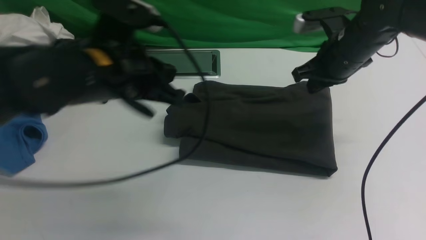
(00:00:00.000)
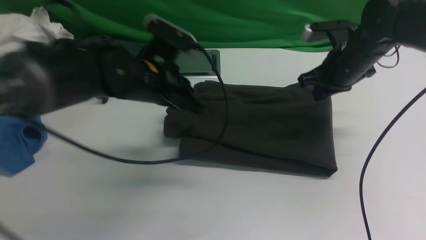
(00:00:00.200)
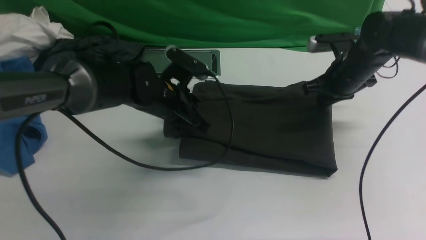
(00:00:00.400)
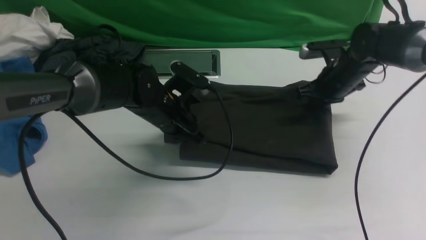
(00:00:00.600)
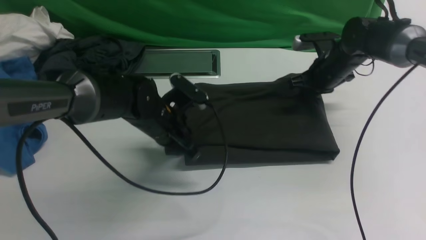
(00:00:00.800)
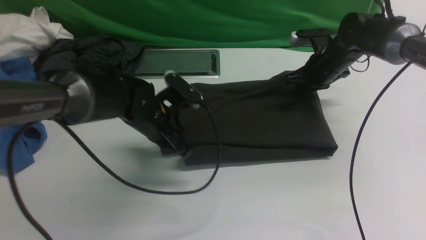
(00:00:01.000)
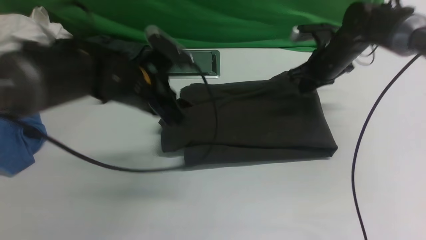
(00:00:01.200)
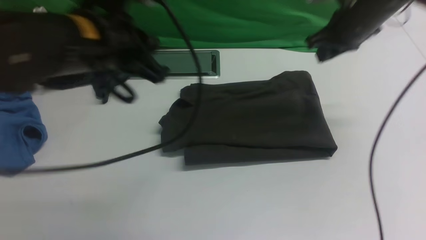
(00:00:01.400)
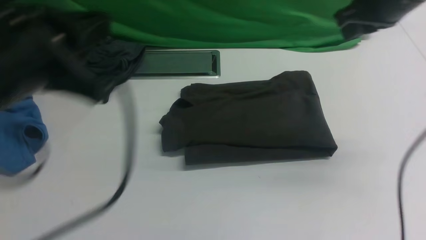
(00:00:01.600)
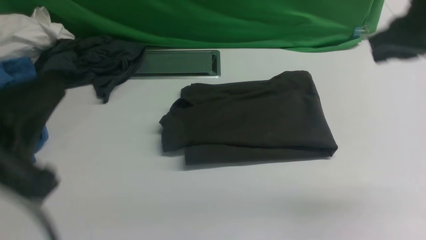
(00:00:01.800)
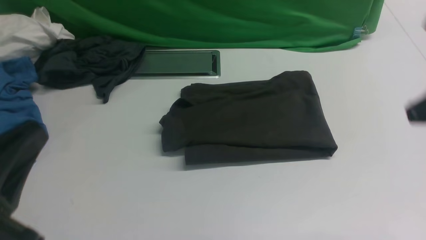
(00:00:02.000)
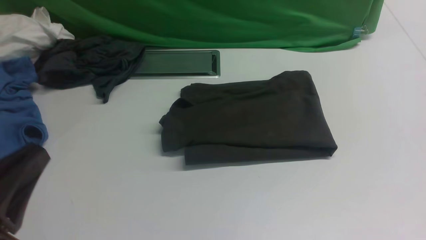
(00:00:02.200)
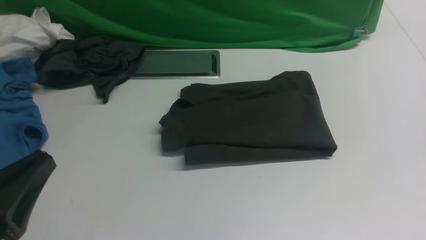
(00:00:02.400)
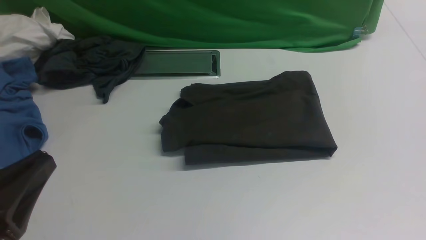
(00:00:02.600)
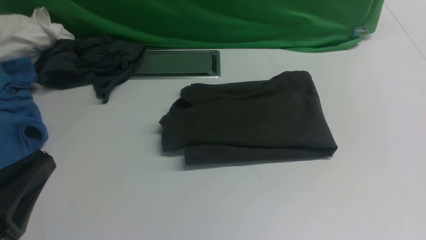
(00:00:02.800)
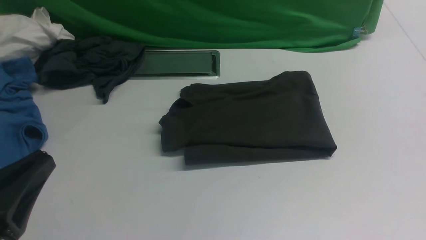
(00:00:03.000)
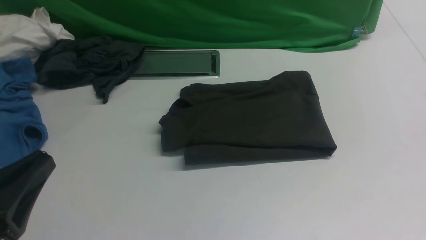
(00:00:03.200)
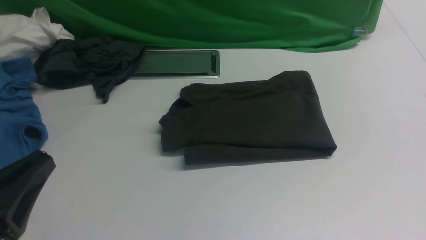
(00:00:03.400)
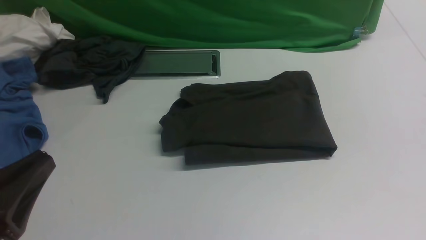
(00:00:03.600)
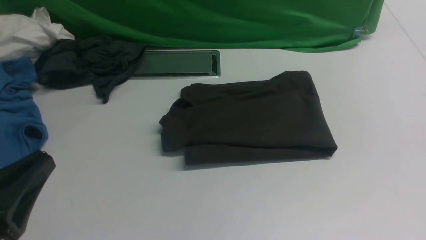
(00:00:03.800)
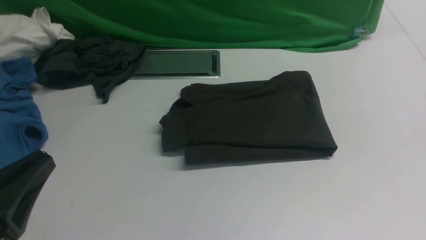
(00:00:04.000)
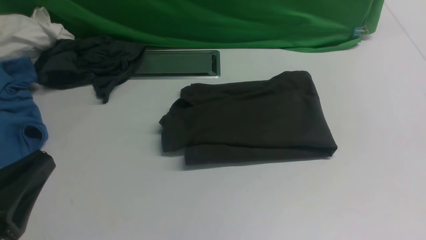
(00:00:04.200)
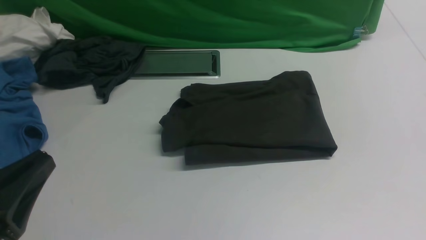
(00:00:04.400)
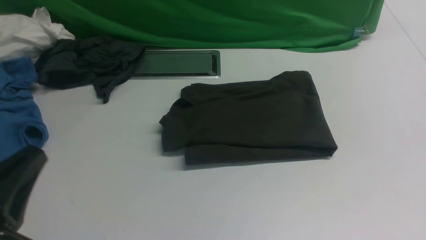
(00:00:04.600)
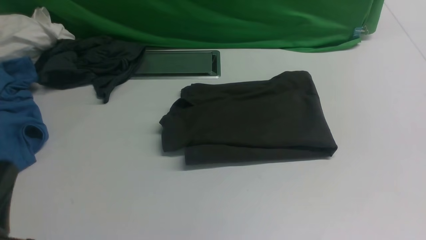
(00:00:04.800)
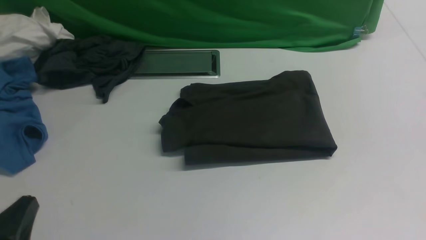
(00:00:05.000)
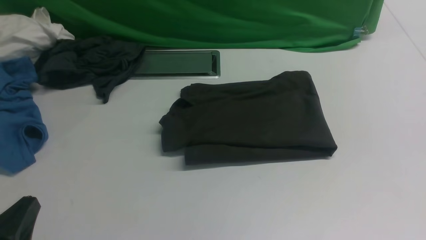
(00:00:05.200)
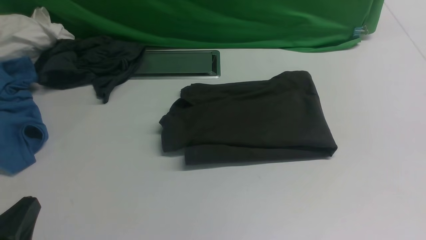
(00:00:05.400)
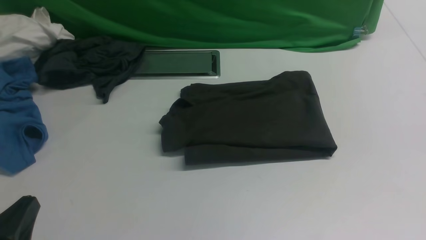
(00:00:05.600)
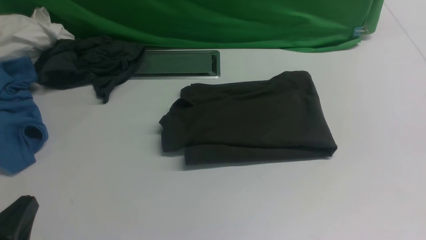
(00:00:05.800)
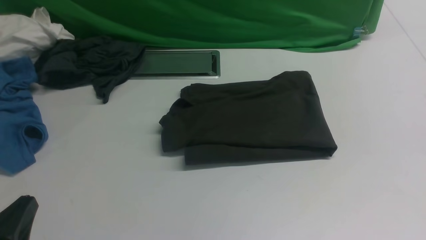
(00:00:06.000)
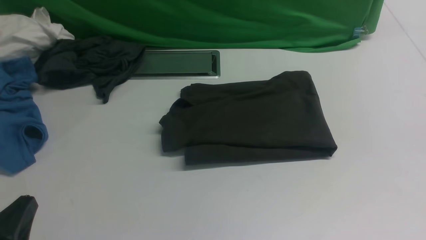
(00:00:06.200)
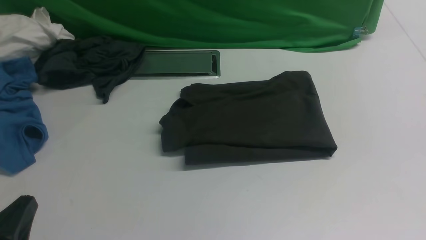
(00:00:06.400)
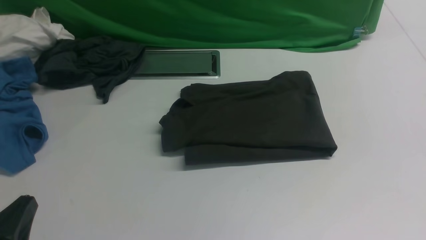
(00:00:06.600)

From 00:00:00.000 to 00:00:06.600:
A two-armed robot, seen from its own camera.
From 00:00:00.000 to 00:00:01.600: The left gripper travels backward, upward and to the left by roughly 15 cm; the right gripper goes approximately 10 cm upward.
From 00:00:01.600 to 00:00:03.200: The right gripper goes approximately 30 cm backward. Meanwhile the left gripper is displaced backward and downward by some 15 cm.
From 00:00:03.200 to 00:00:05.000: The left gripper is displaced downward by roughly 5 cm.
